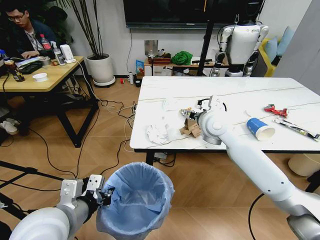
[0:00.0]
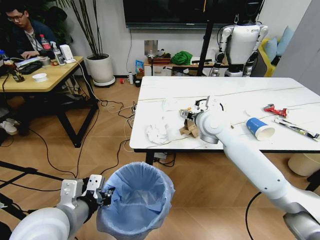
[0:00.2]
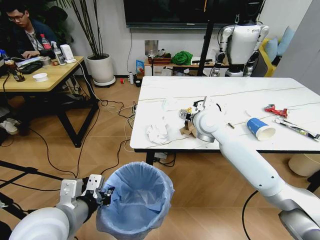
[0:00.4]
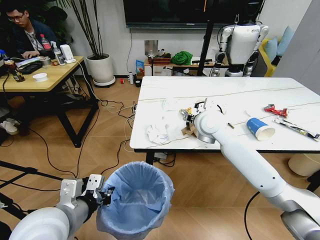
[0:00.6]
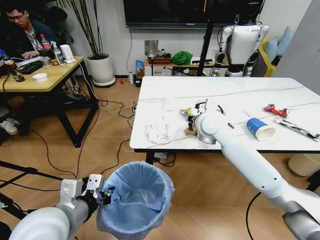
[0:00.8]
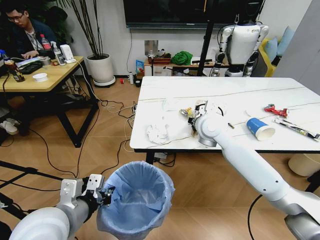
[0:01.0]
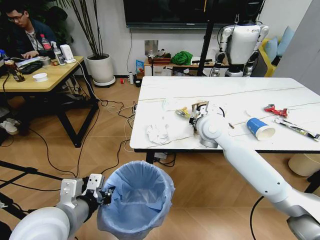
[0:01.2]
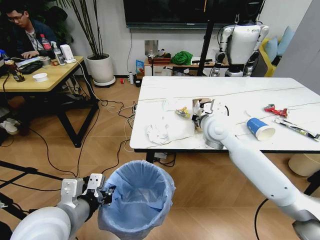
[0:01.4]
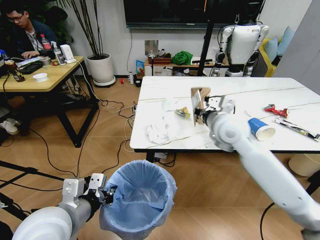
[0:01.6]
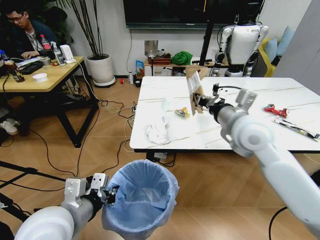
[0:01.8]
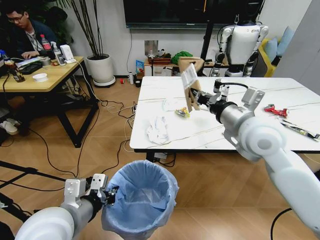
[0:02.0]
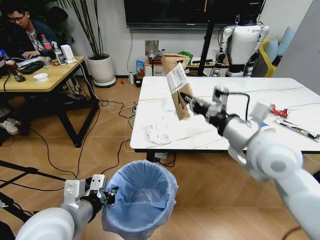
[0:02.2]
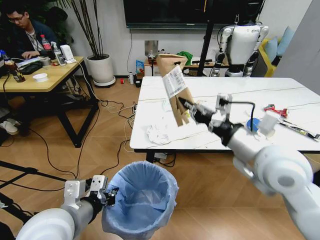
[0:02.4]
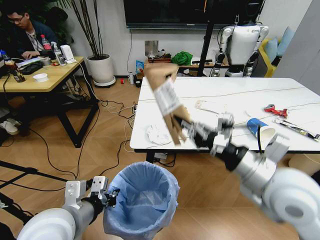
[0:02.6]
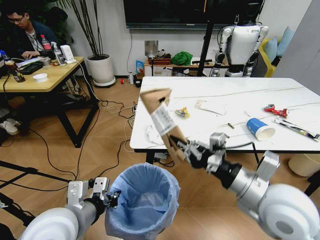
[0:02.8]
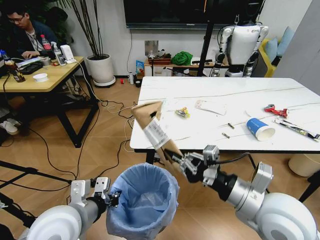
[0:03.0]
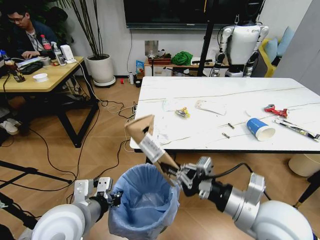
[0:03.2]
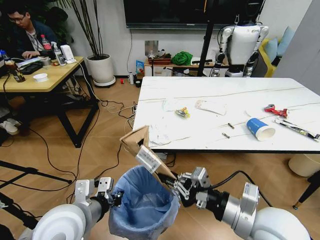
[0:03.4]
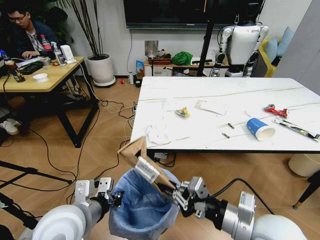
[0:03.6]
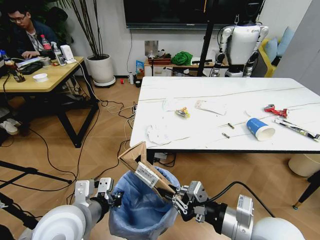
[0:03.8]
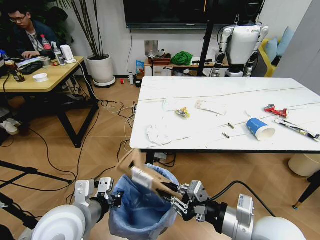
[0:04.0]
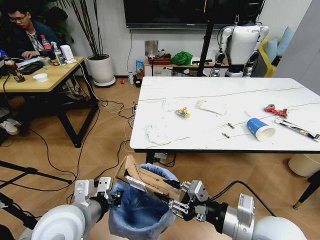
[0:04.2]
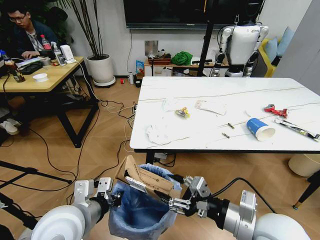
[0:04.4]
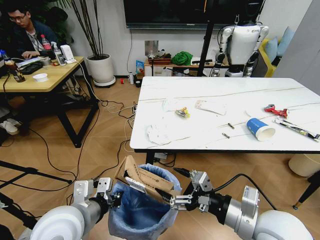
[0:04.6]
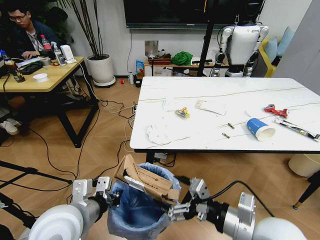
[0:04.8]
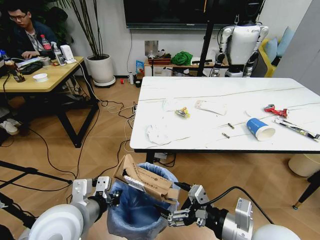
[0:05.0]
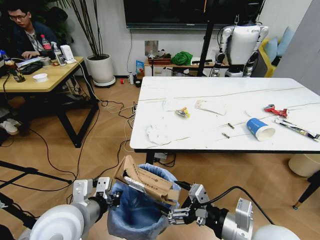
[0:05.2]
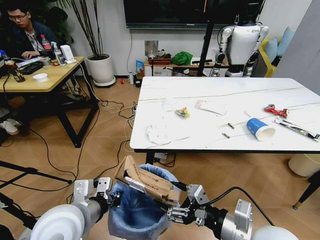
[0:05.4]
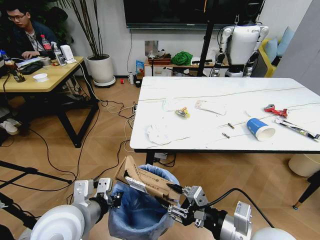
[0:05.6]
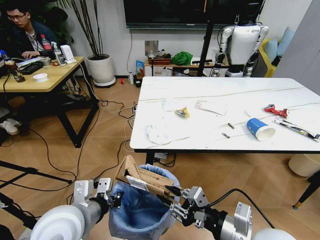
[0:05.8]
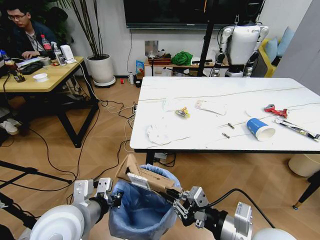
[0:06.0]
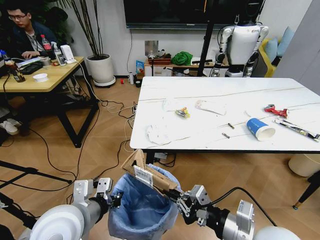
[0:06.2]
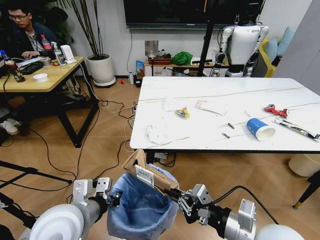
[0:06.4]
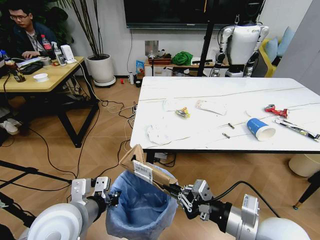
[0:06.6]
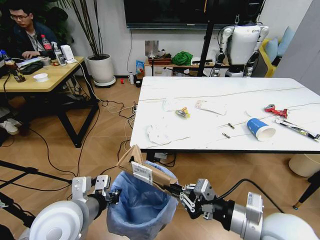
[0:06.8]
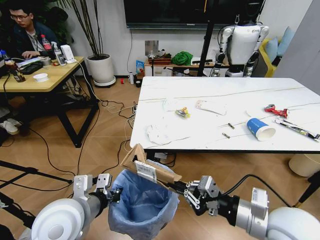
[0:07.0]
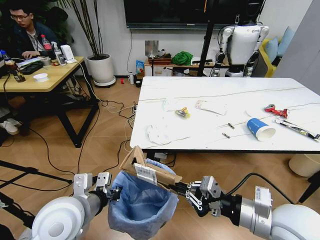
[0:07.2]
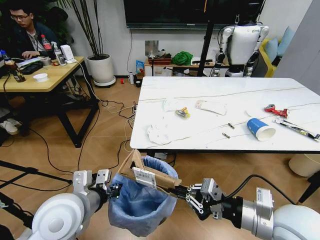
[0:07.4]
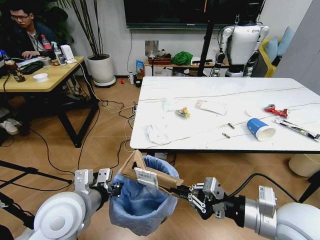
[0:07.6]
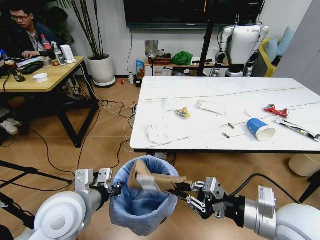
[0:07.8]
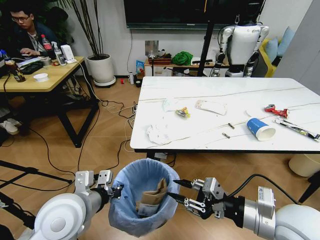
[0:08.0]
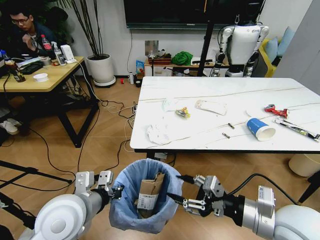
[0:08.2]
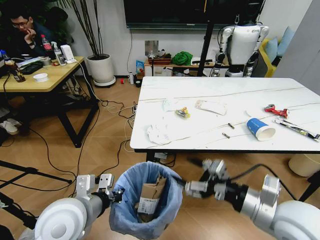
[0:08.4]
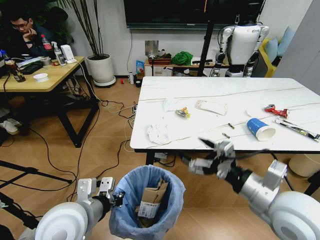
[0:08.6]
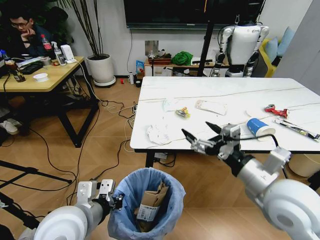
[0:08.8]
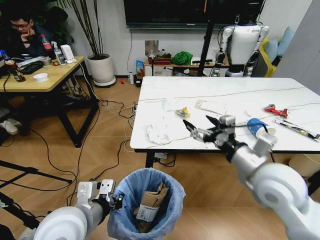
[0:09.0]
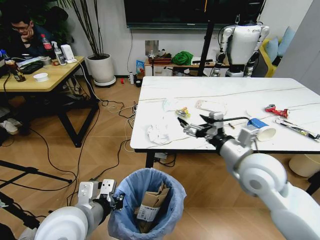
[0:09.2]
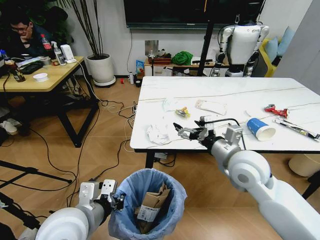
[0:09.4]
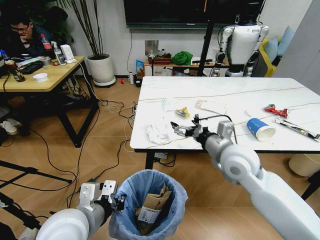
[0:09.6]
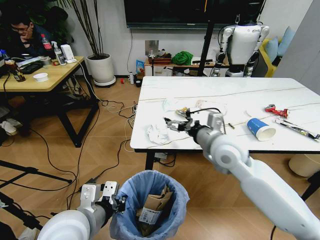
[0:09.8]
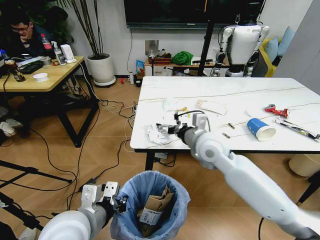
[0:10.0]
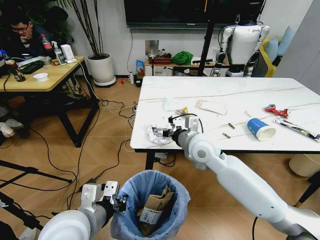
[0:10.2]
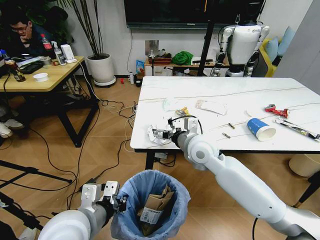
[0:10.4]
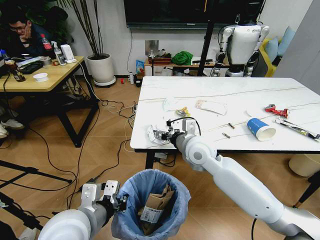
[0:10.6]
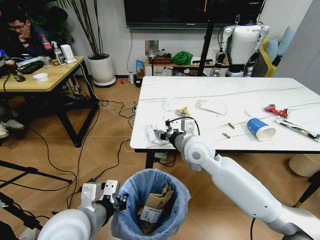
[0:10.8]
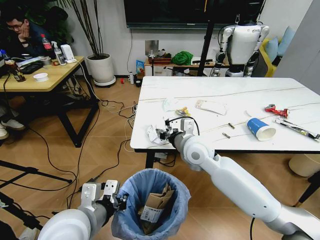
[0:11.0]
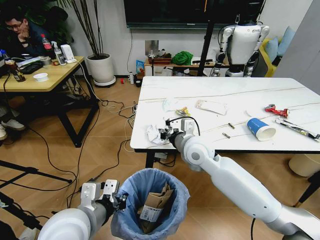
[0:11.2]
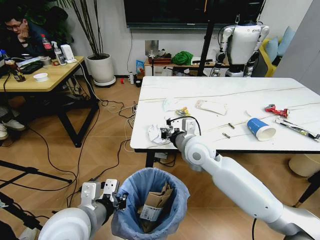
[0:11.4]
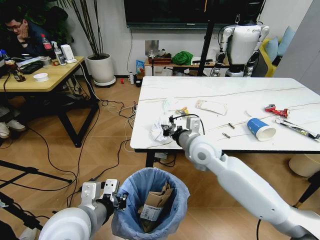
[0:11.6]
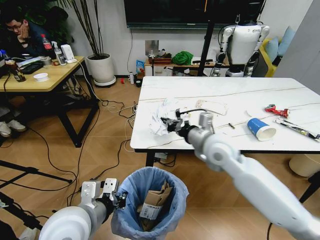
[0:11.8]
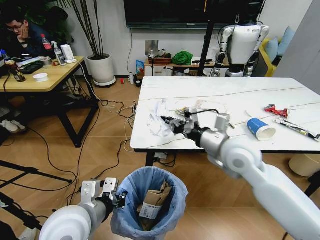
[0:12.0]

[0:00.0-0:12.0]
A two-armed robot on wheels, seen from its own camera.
Task of the whole recording: Pick up the trash bin and place the trash from the table into it.
0:00.0 to 0:01.6: The right gripper closes up.
0:01.6 to 0:03.0: The right gripper shifts about 20 cm backward.
0:03.0 to 0:04.4: The right gripper opens its fingers.
0:04.4 to 0:06.0: The right gripper closes up.
0:06.0 to 0:07.6: The right gripper heads to the right, covering about 5 cm.
0:07.6 to 0:09.0: The right gripper goes approximately 10 cm forward, and opens its fingers.
0:09.0 to 0:10.4: The right gripper travels forward and to the left by approximately 20 cm.
0:10.4 to 0:12.0: The right gripper is displaced to the right and backward by some 10 cm, and closes its fingers.

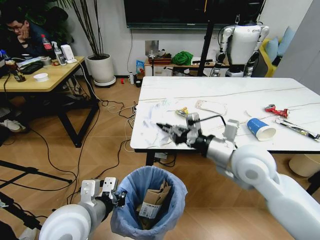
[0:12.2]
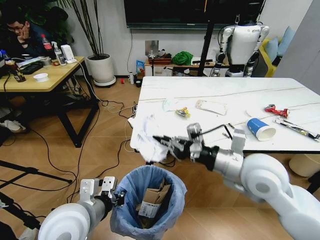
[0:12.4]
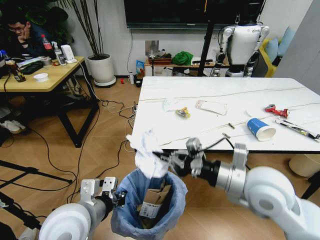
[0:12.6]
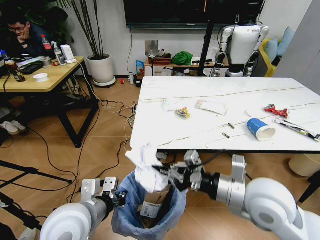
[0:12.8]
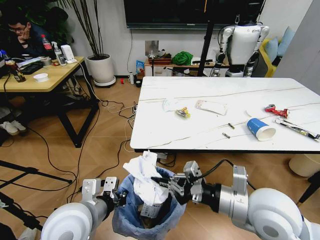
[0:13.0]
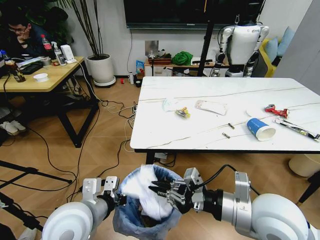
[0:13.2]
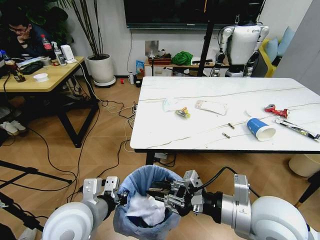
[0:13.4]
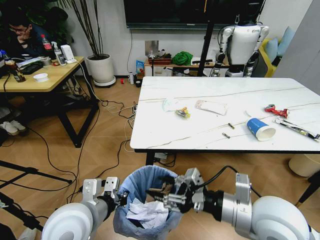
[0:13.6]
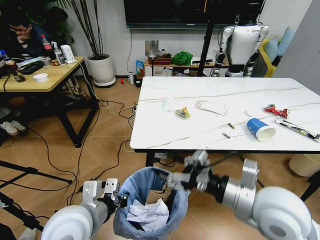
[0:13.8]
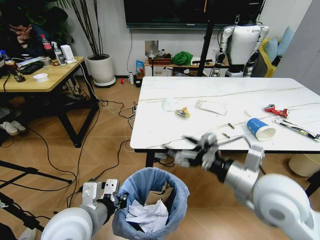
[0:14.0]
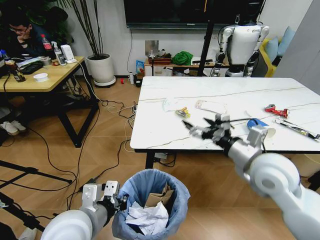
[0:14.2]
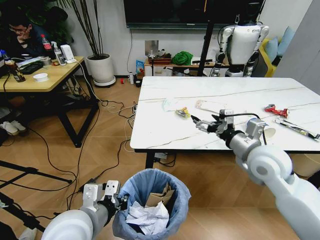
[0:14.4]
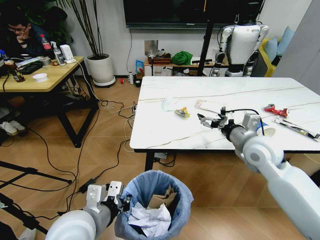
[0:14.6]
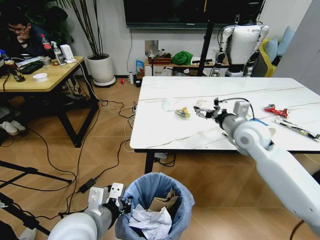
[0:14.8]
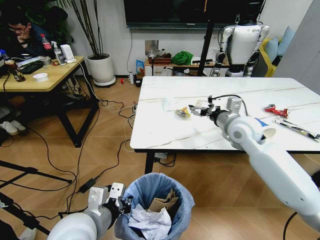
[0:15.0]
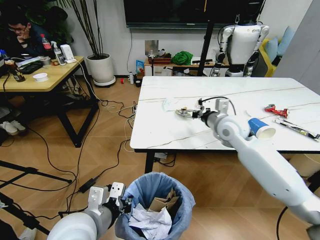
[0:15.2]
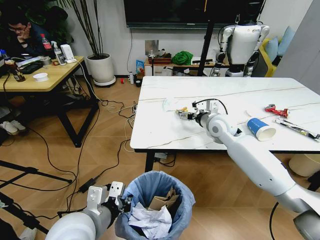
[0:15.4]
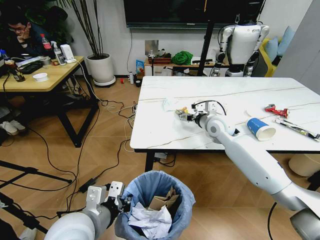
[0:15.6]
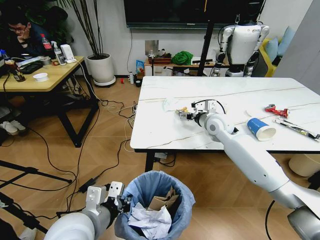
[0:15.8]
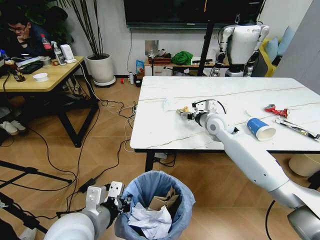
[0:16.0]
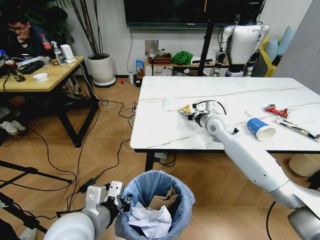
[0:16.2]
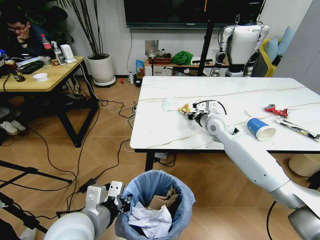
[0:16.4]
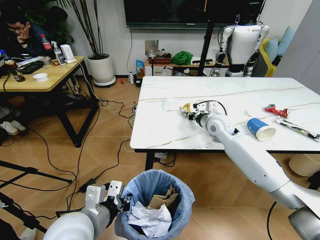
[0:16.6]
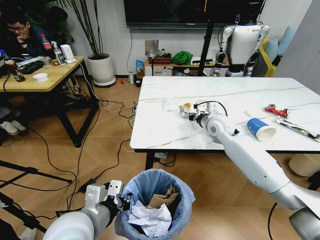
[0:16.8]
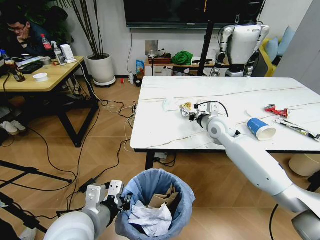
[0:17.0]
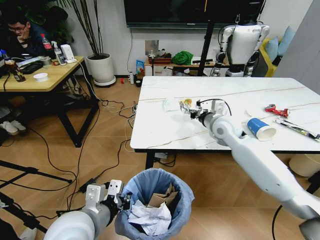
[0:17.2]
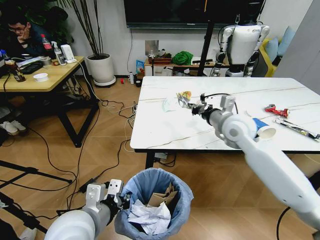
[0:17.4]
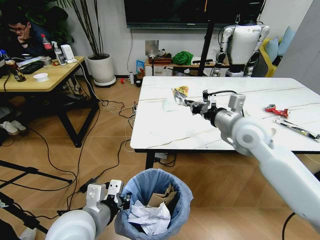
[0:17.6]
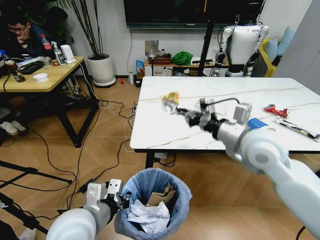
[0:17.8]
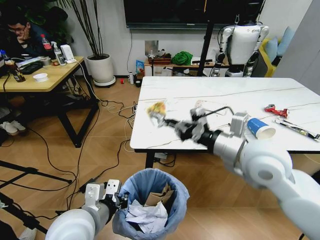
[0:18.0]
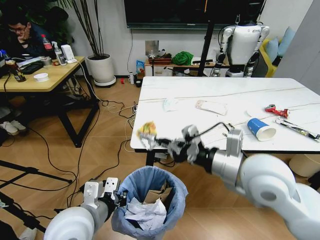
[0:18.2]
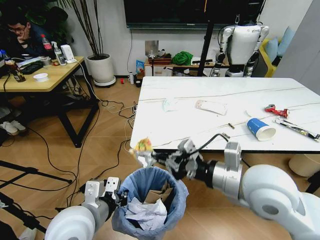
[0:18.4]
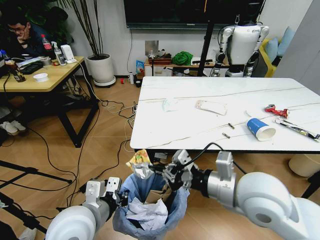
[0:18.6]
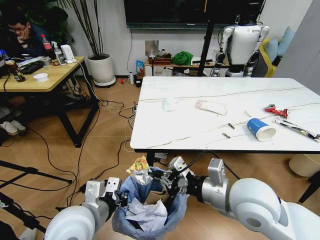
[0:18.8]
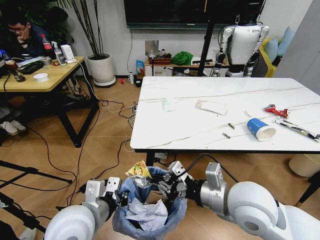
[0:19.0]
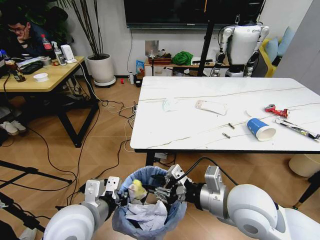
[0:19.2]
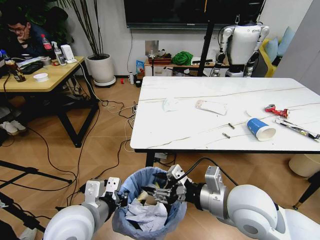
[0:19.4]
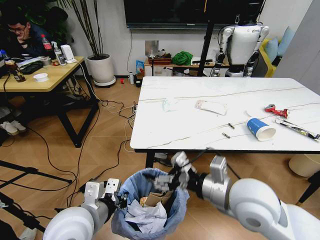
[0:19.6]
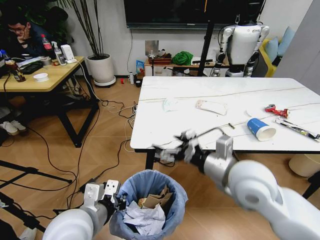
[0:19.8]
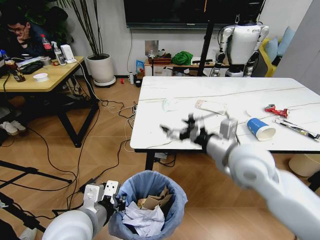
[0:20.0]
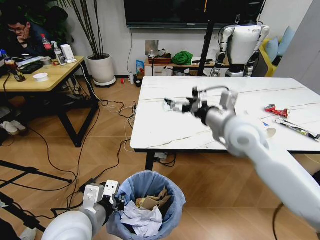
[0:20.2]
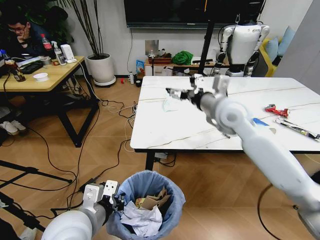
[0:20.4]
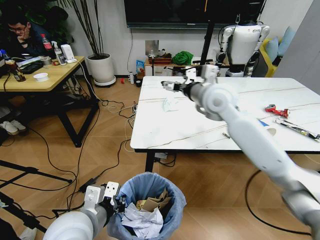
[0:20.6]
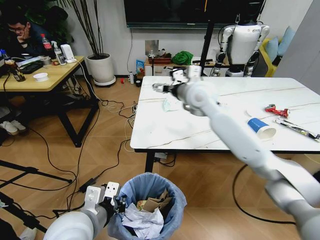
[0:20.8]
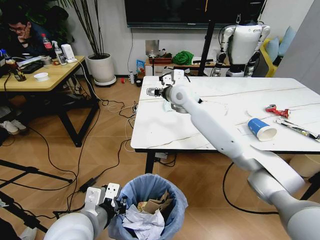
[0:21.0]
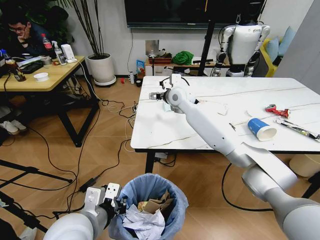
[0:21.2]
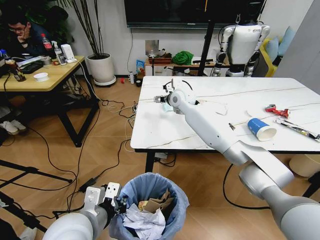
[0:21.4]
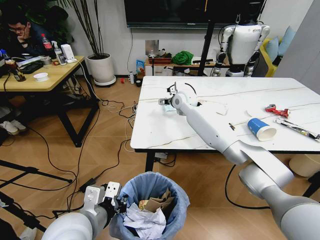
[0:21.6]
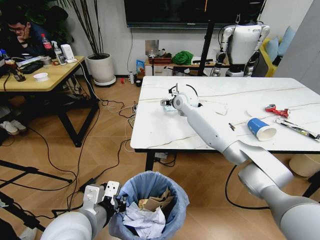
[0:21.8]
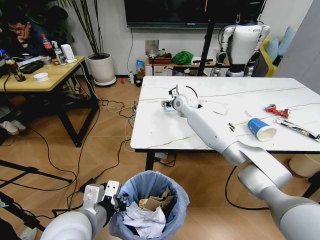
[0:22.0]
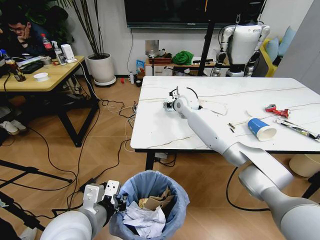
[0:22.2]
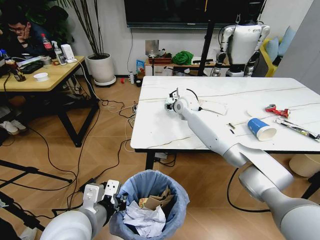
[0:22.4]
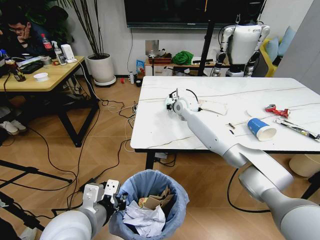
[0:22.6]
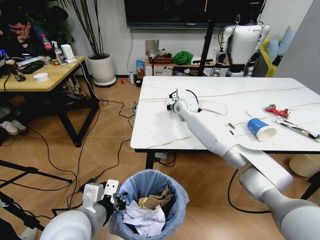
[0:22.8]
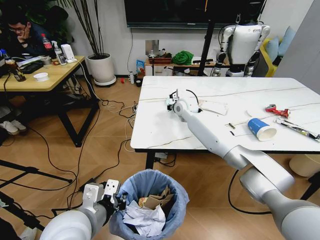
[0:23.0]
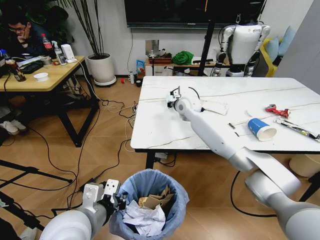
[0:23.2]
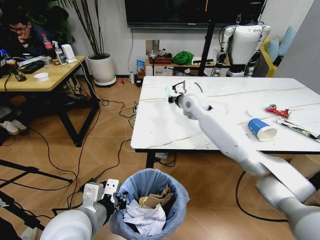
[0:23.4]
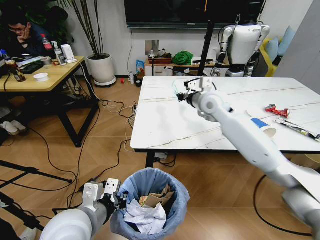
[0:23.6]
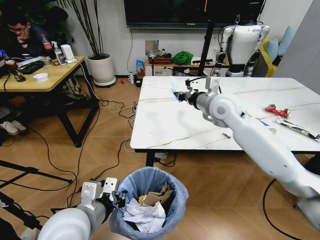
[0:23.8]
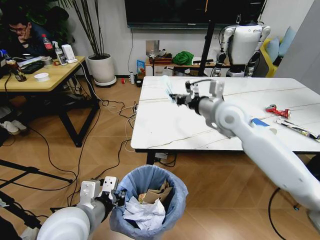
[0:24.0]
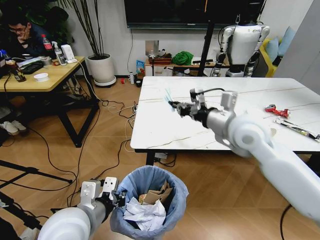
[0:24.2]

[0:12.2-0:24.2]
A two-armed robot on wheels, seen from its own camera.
Task of the whole recording: Pick up the trash bin and place the trash from the table into it.
0:12.2 to 0:13.8: The right gripper goes roughly 10 cm backward, and opens up.
0:13.8 to 0:15.2: The right gripper shifts some 25 cm forward.
0:15.2 to 0:16.6: The right gripper changes place by some 5 cm, and closes its fingers.
0:16.6 to 0:18.2: The right gripper shifts roughly 25 cm backward.
0:18.2 to 0:19.8: The right gripper opens its fingers.
0:19.8 to 0:21.2: The right gripper moves forward, approximately 30 cm.
0:21.2 to 0:22.6: The right gripper moves downward, roughly 10 cm, and closes its fingers.
0:22.6 to 0:24.2: The right gripper heads backward and upward, covering roughly 30 cm, and closes up.
